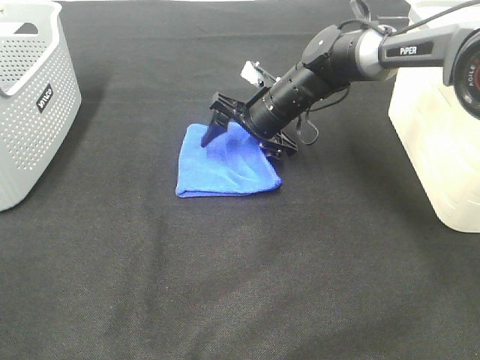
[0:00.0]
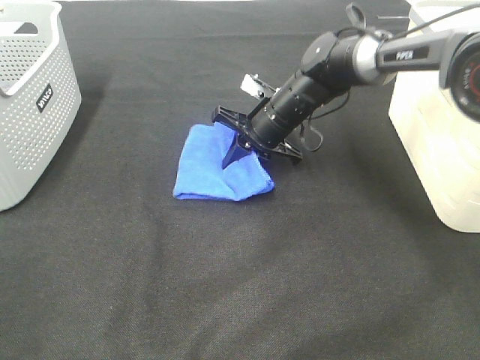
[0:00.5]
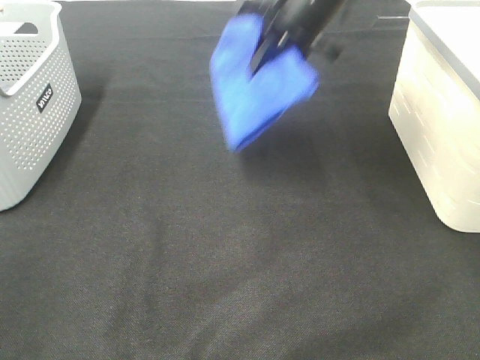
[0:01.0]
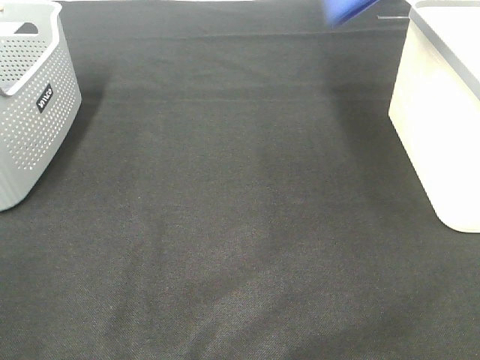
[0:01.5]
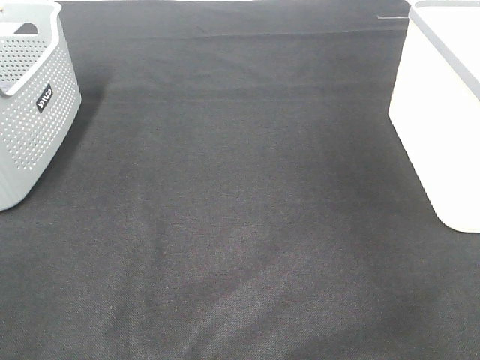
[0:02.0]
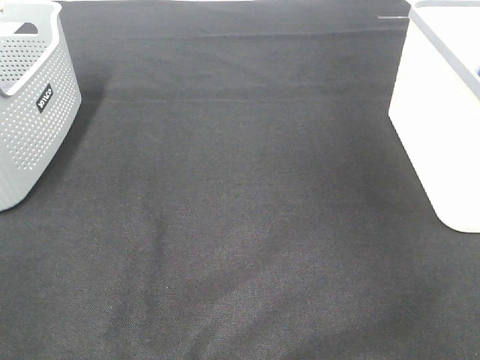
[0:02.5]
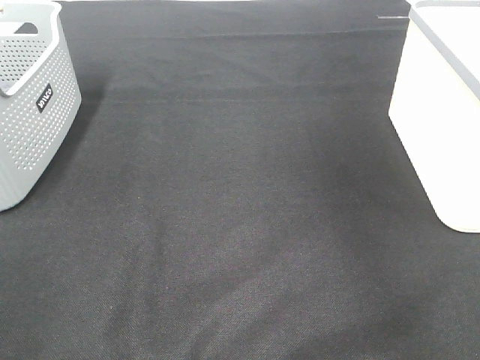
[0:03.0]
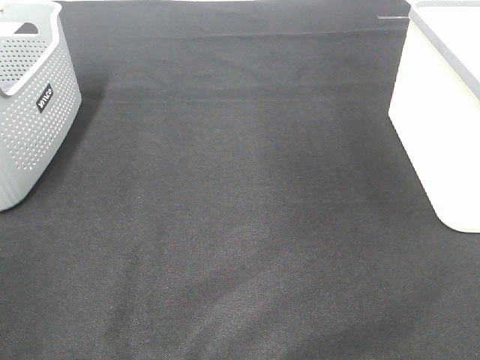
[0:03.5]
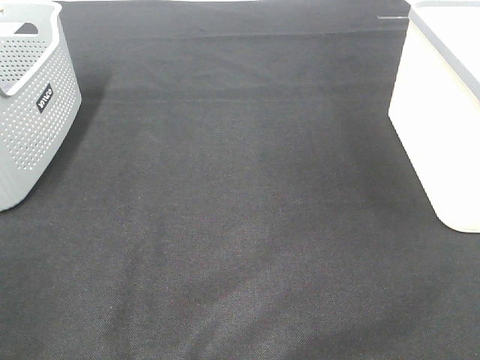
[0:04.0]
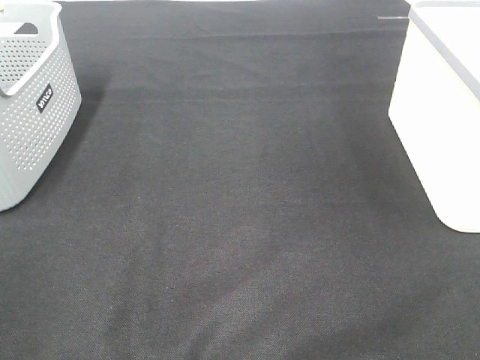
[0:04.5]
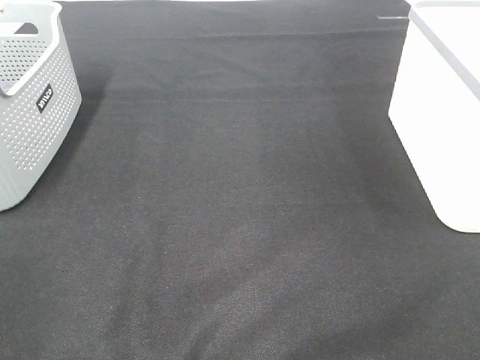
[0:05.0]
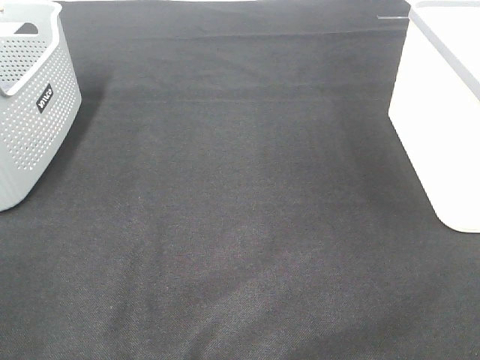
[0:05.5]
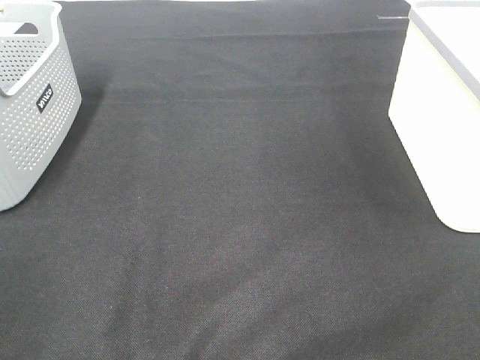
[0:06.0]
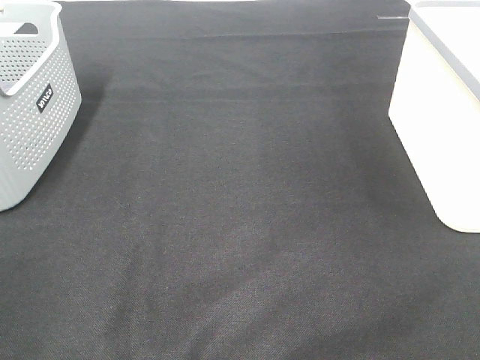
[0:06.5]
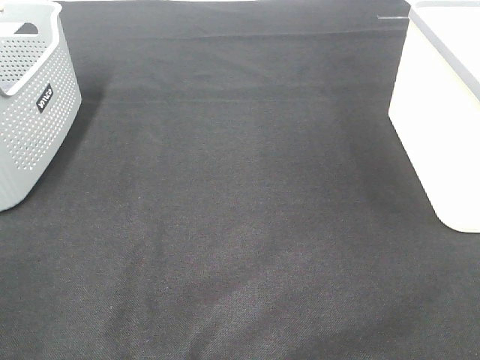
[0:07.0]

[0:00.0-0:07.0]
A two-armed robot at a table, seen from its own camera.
Step, 0:00.5 to 0:02.5: Right hand: place the blue towel in right basket.
0:00.0 to 0:02.0: The right gripper goes some 50 cm to the right and upward, and closes up.

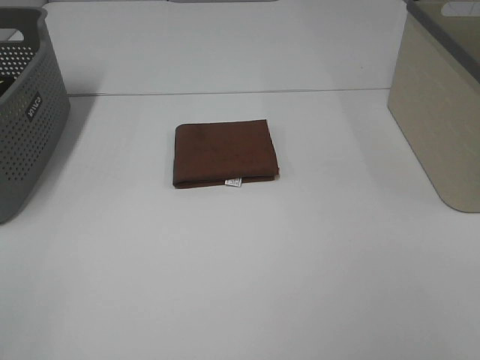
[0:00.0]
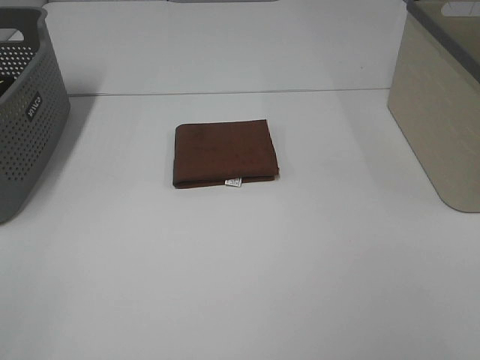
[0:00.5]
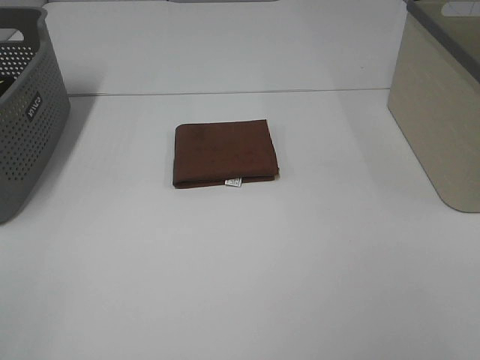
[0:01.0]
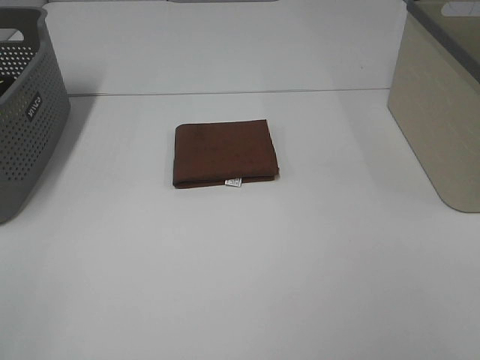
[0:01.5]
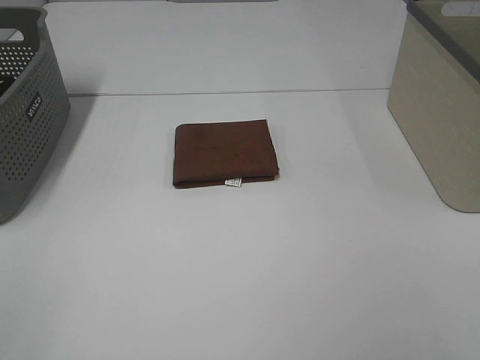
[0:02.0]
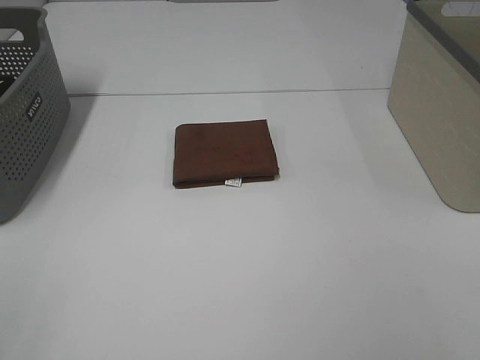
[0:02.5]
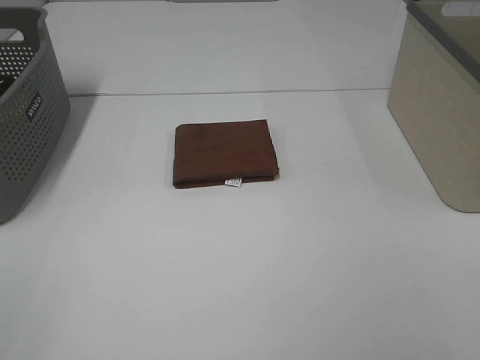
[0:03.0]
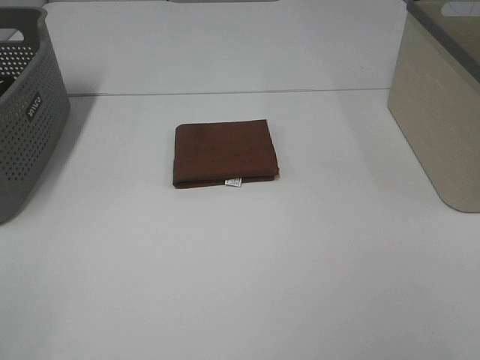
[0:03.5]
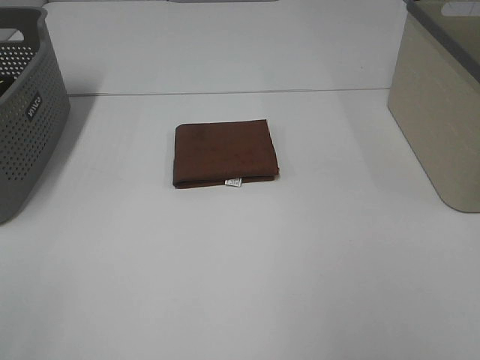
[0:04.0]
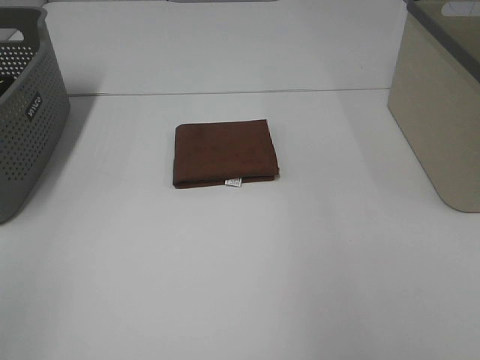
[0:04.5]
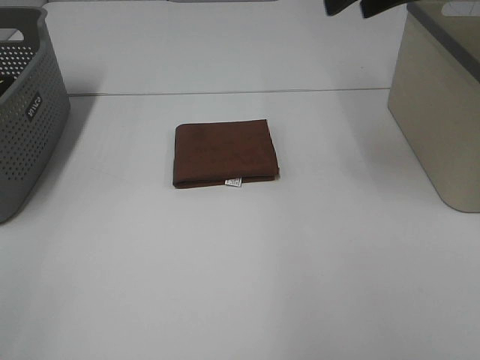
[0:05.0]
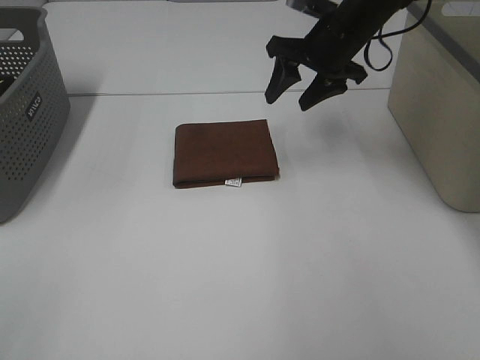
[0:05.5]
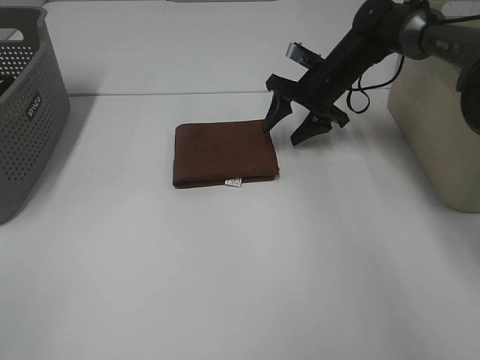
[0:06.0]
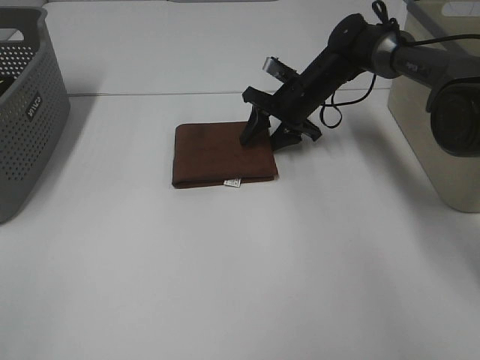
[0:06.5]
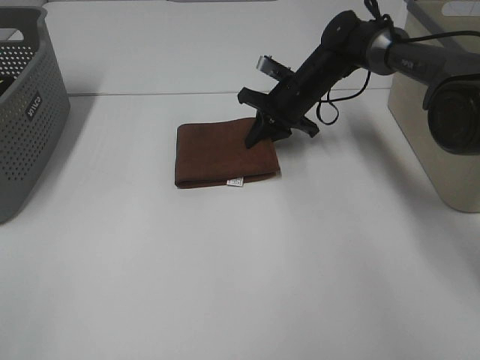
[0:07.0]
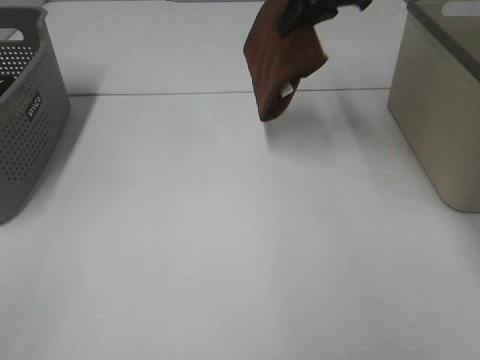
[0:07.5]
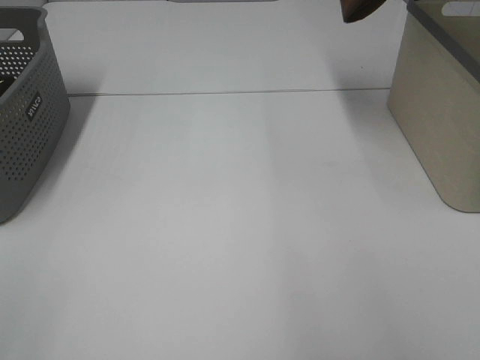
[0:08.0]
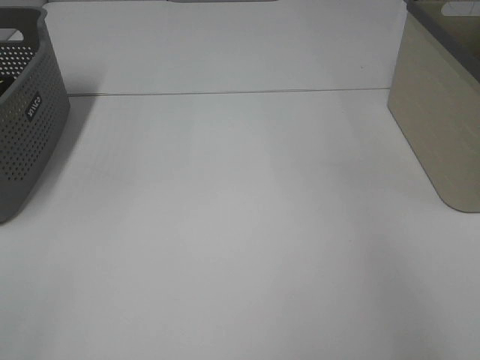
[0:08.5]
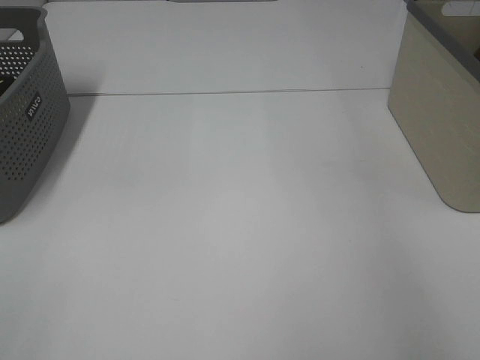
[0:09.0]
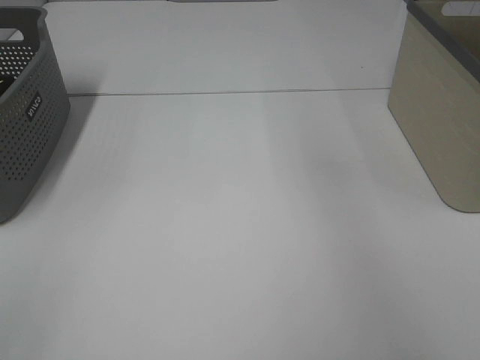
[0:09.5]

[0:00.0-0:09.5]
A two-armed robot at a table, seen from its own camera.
Step, 0:00.0 to 0:06.5: Right hand: grab the folded brown towel.
Step, 0:07.0 to 0:09.0: Right hand: place the brown towel in right basket.
0:00.0 to 0:02.0: Both grippers stay put.
0:04.0 to 0:05.5: The right gripper is displaced forward and to the left by some 40 cm.
0:05.5 to 0:07.5: The right gripper travels upward by approximately 10 cm, and closes.
0:07.5 to 0:09.5: The right gripper heads to the right, covering roughly 20 cm, and opens its fingers.

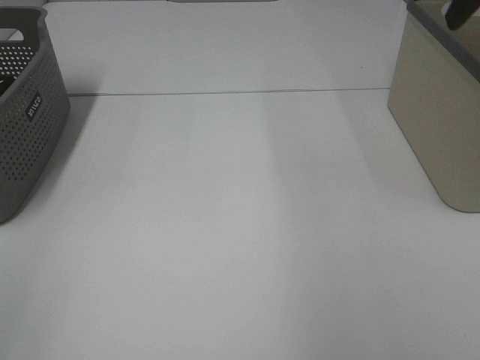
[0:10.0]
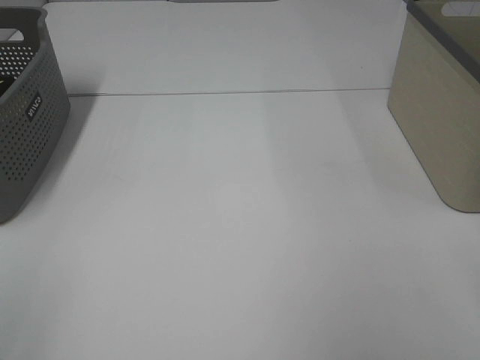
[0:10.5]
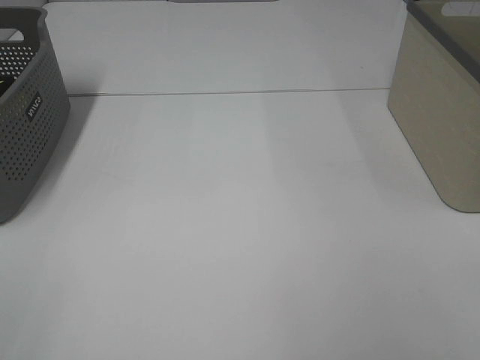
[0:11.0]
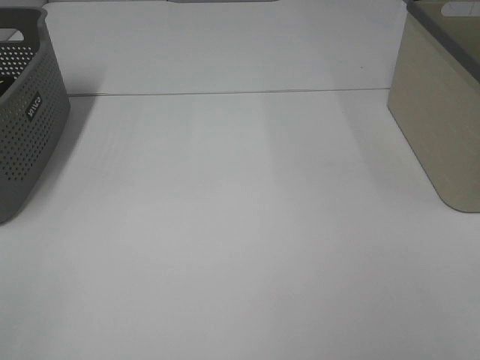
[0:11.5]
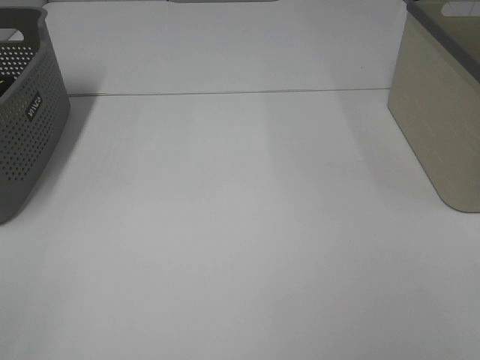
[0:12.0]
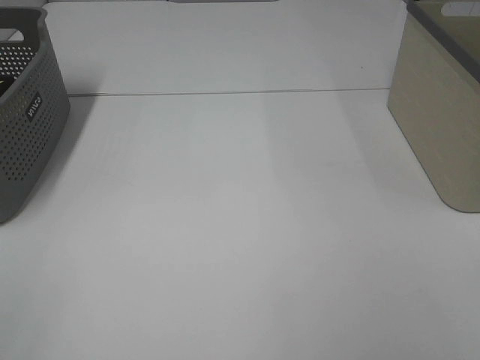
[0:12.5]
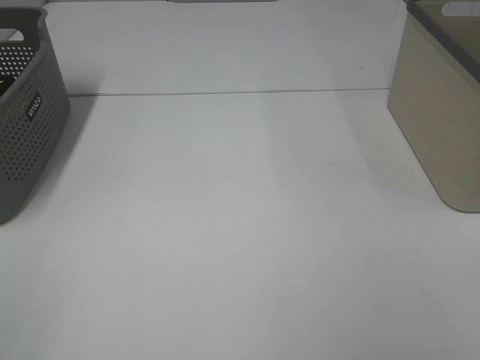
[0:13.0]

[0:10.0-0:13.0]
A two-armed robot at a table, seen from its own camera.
0:11.5 to 0:13.0: Both grippers stay about where they are.

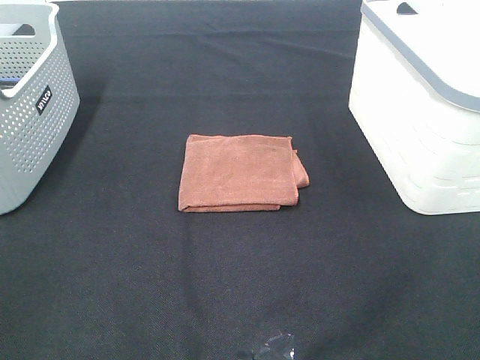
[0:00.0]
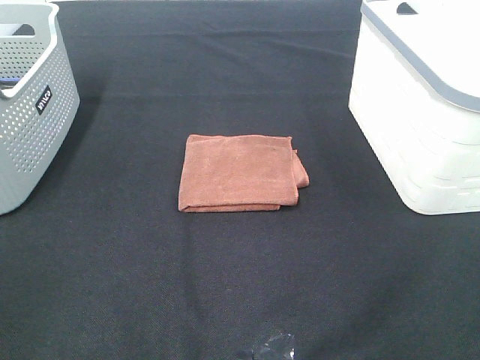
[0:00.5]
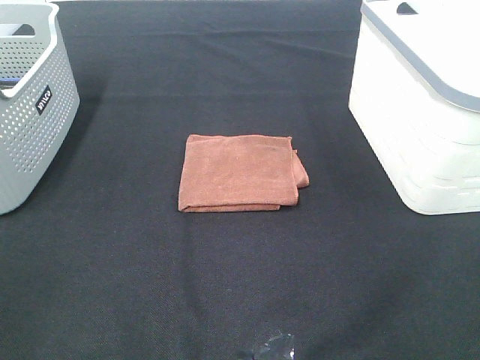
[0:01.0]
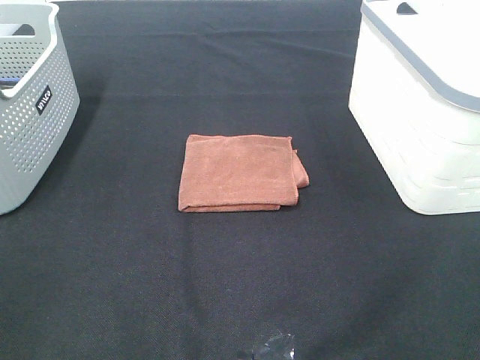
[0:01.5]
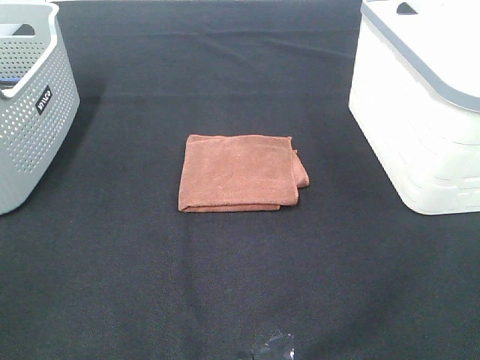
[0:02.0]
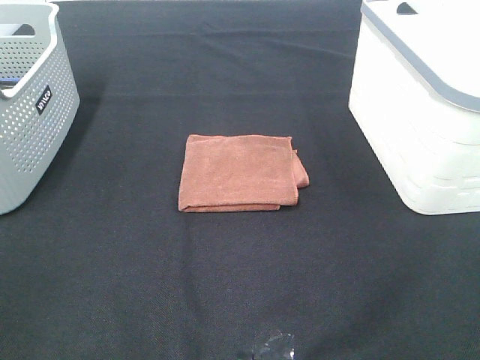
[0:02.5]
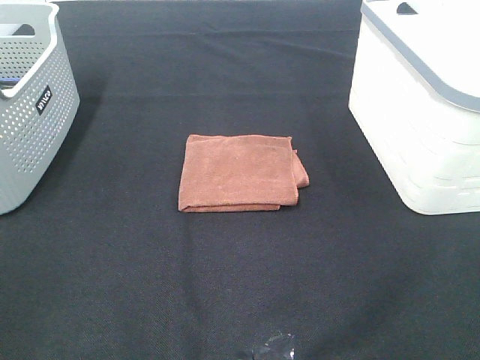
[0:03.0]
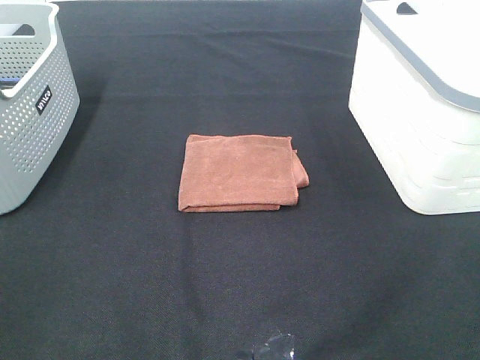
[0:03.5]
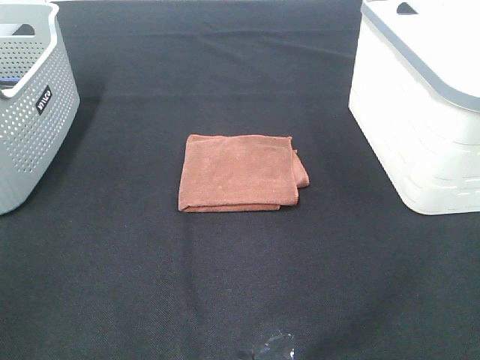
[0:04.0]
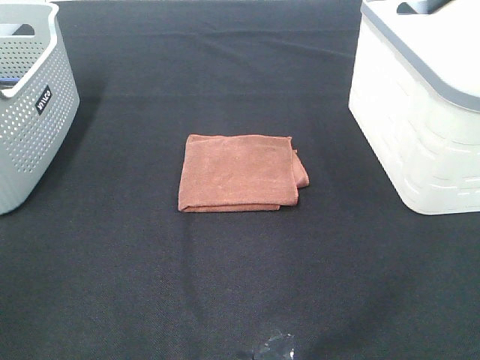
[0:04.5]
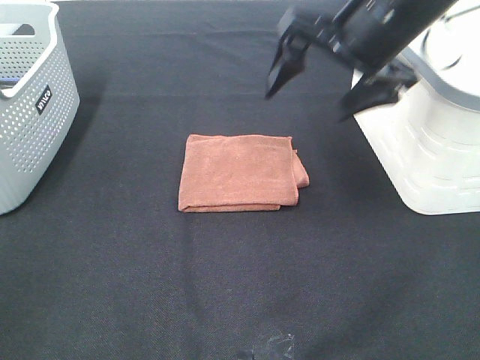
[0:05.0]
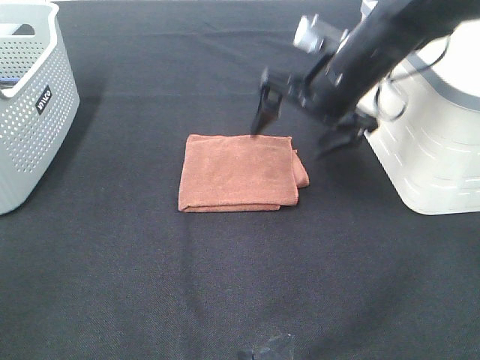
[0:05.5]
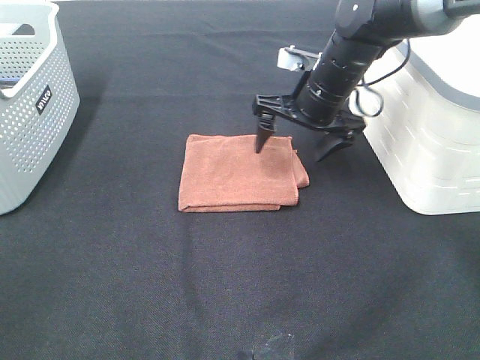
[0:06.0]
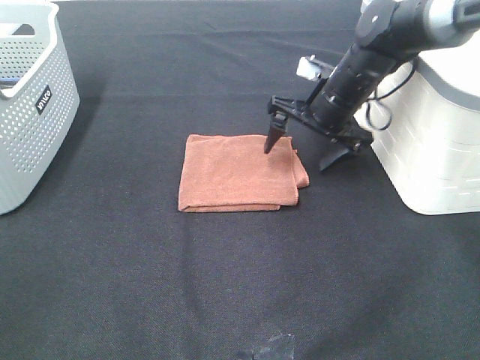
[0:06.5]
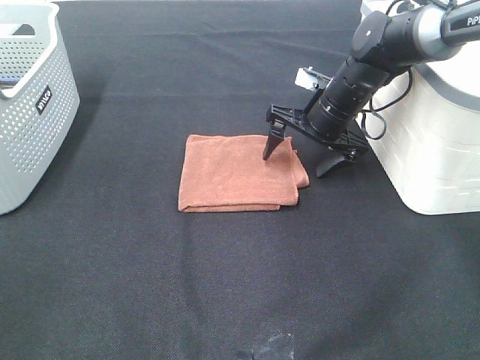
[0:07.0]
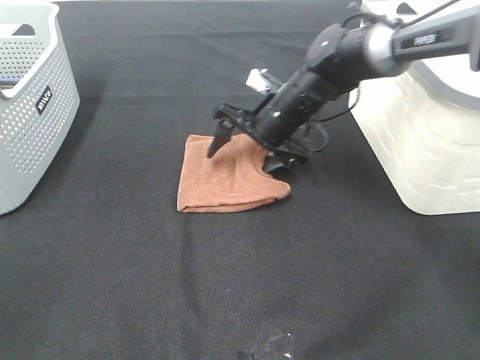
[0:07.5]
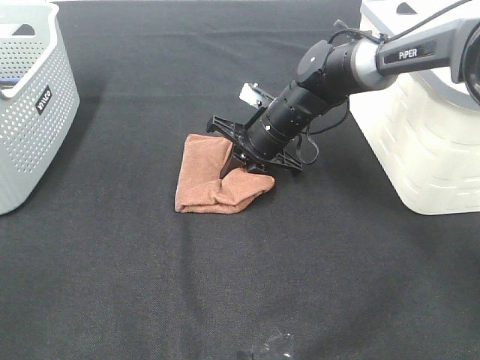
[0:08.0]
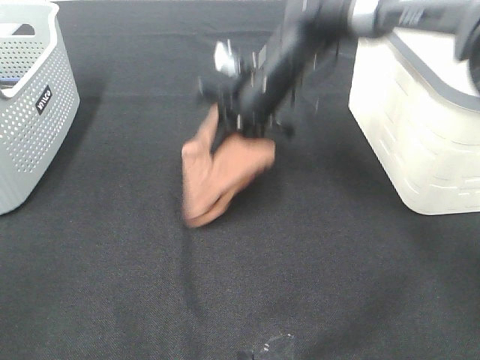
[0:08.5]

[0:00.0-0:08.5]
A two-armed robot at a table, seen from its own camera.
Step, 0:00.0 to 0:08.0: Right hand: grab the folded brown towel.
0:00.0 to 0:02.0: Both grippers stay about where they are.
0:04.0 to 0:06.5: The right gripper moves downward, forward and to the left, approximately 40 cm.
0:06.5 to 0:08.5: The right gripper moves to the left and upward, about 10 cm, and closes.
